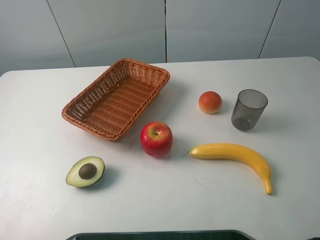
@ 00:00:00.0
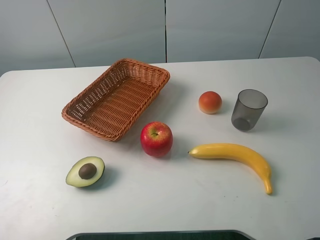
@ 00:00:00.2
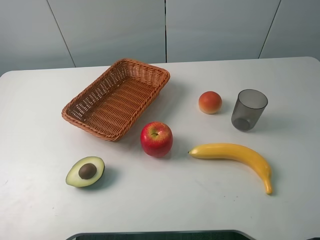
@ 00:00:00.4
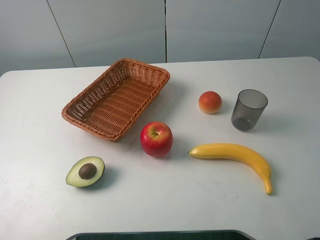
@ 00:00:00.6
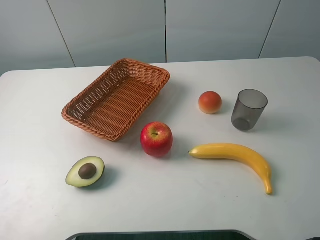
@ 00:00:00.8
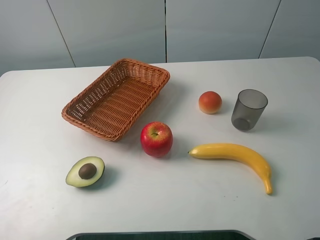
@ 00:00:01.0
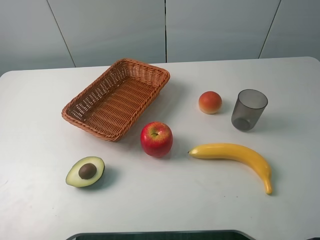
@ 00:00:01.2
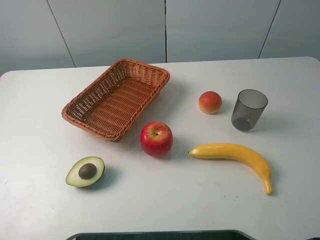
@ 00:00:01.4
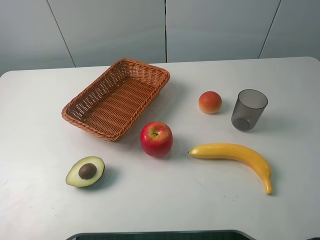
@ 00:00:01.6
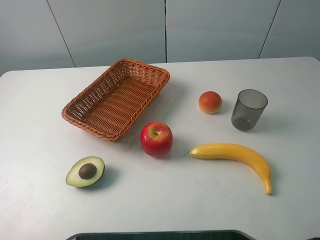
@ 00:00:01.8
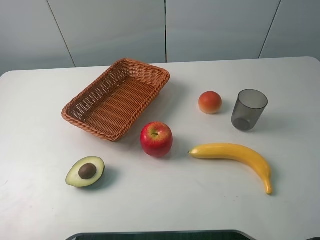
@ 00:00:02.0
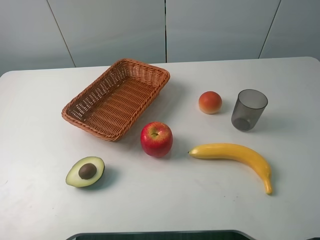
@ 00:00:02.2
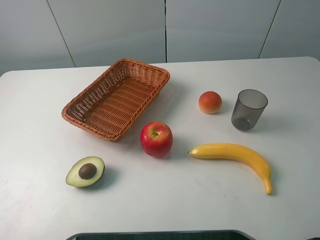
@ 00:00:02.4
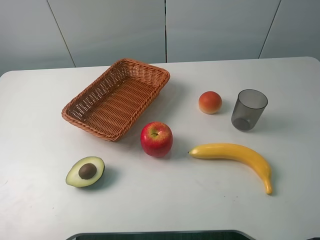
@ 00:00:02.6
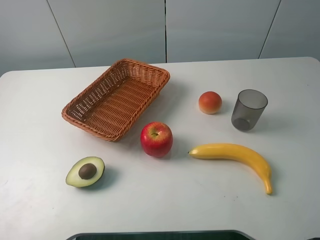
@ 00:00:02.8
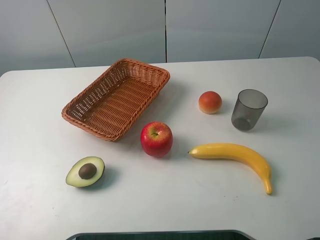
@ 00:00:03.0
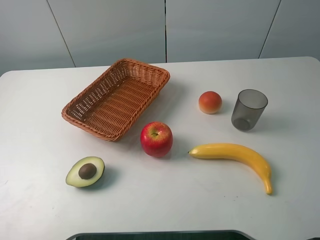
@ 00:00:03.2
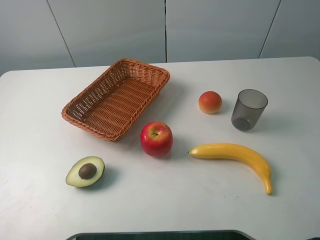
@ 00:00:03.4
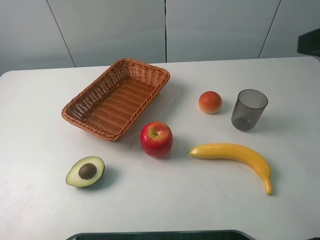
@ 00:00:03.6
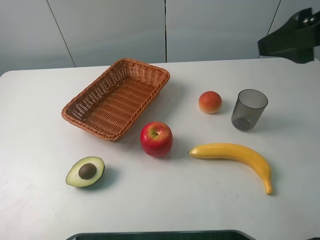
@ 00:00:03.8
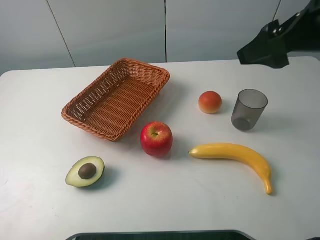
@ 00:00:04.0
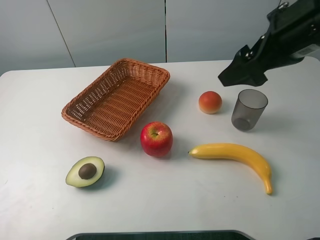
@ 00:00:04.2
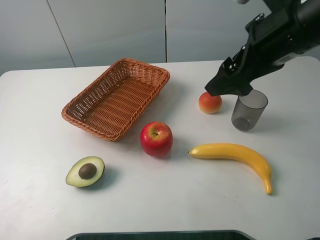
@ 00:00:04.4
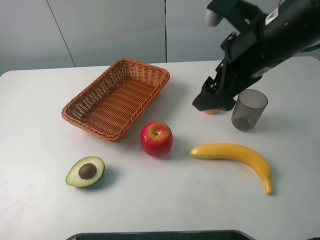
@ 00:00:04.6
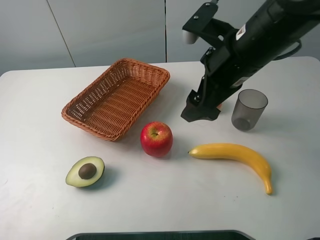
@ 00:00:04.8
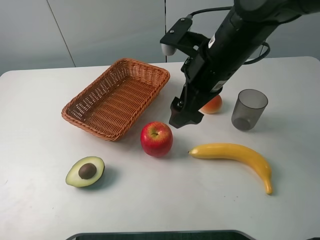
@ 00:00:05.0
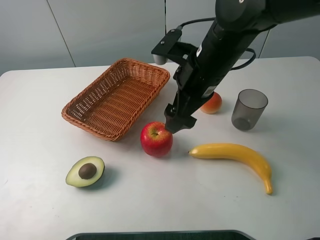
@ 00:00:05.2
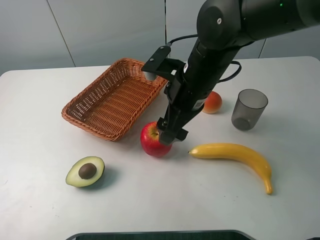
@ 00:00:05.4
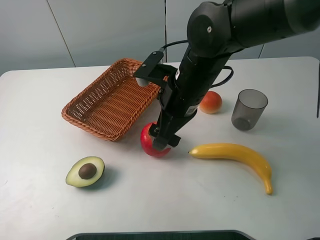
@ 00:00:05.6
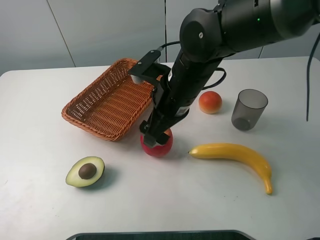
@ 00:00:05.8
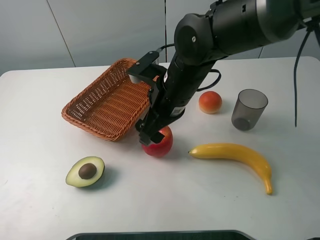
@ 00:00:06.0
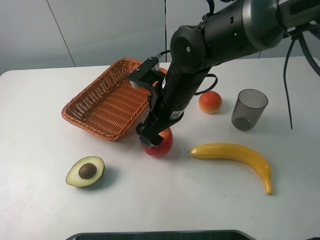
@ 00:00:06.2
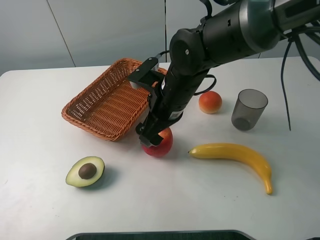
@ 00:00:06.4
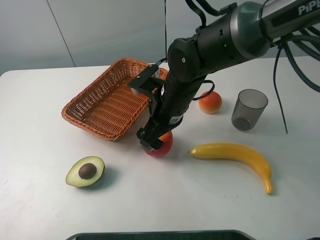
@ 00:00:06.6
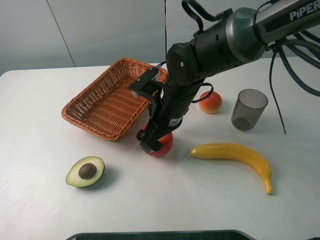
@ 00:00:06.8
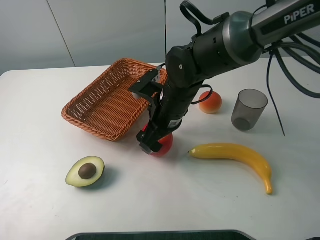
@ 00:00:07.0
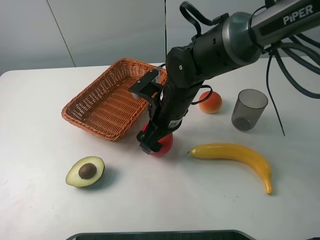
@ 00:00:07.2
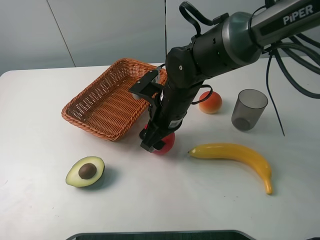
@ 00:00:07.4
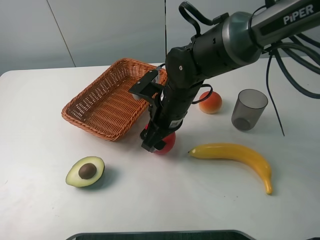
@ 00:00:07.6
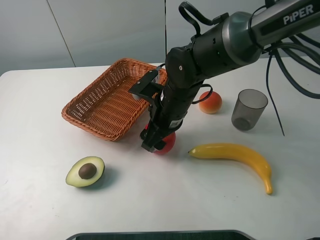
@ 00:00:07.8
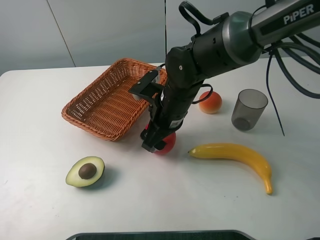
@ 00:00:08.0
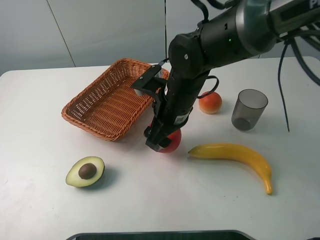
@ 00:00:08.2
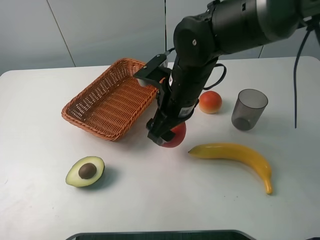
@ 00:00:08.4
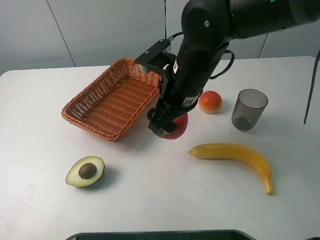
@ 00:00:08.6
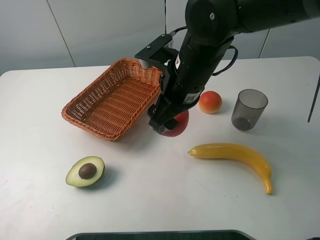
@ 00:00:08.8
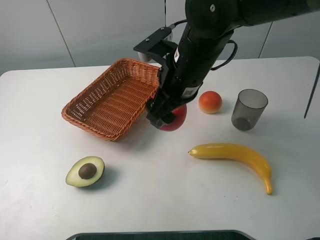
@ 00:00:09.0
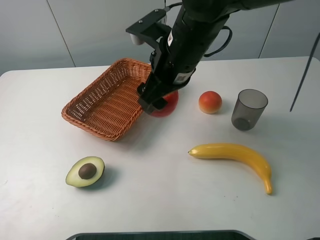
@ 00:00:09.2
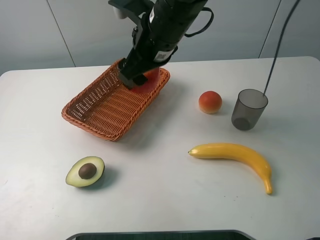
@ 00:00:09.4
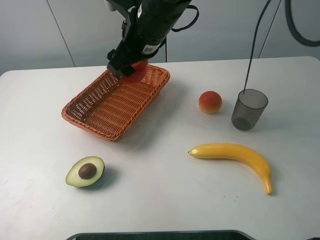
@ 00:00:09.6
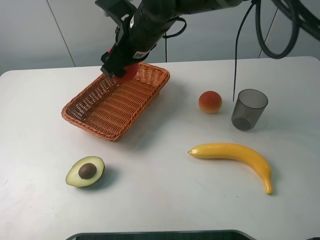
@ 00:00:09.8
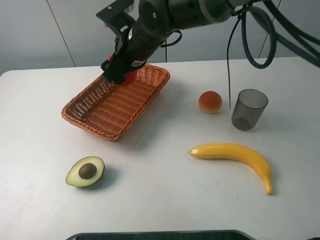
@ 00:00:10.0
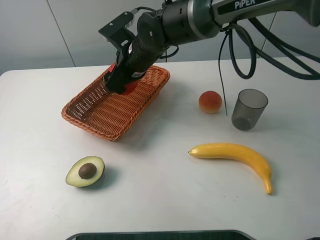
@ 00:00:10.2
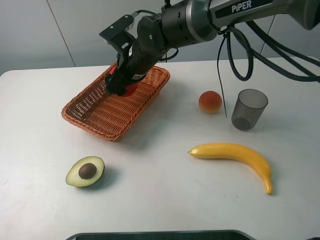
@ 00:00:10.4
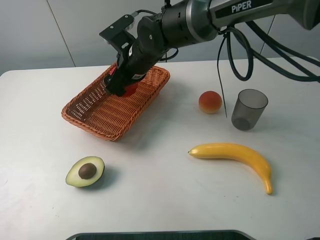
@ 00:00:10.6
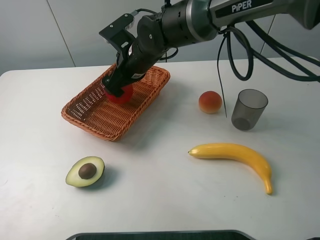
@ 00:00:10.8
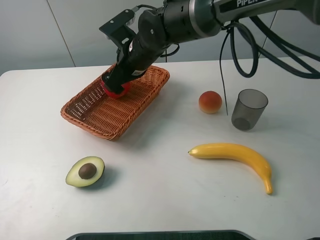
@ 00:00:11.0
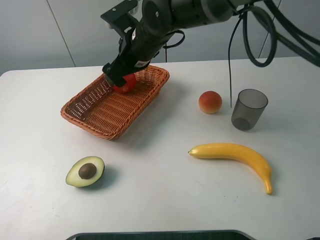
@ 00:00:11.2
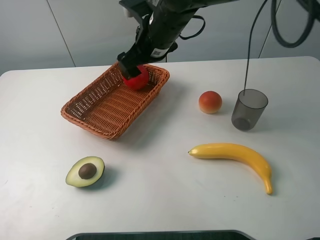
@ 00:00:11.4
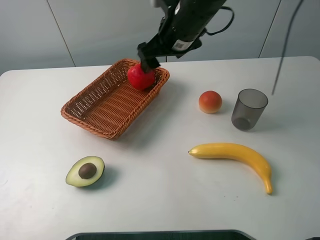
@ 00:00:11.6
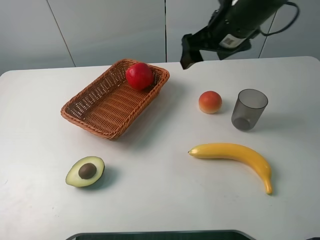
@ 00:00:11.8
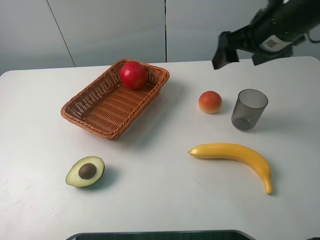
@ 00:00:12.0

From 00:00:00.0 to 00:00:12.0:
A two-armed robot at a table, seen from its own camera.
Task of the whole recording: randomly pick up an item from the table and put it in the basket.
Step, from 00:00:00.0 to 00:00:07.8: Grasp the apple with the right gripper.
Step, from 00:00:08.0 to 00:00:11.6: Place the apple into the basket with the right gripper.
From 00:00:00.0 to 00:00:01.6: Neither gripper changes place.
From 00:00:03.0 to 00:00:04.4: The right gripper goes approximately 20 cm forward and to the left.
From 00:00:04.4 to 00:00:06.0: The right gripper shifts approximately 20 cm to the left and downward.
From 00:00:06.0 to 00:00:07.6: The right gripper closes up.
From 00:00:07.6 to 00:00:09.0: The right gripper goes some 10 cm upward.
From 00:00:09.0 to 00:00:10.4: The right gripper shifts roughly 15 cm forward, to the left and downward.
From 00:00:10.4 to 00:00:12.0: The right gripper shifts approximately 25 cm to the right and upward, and opens its fingers.

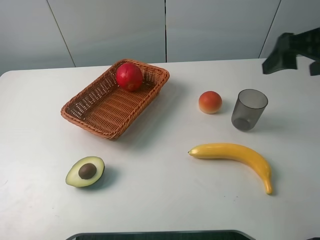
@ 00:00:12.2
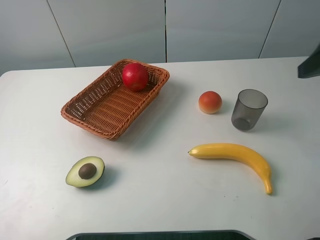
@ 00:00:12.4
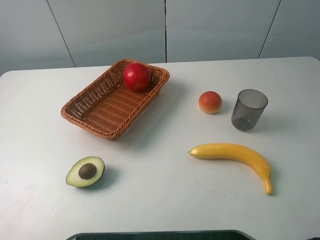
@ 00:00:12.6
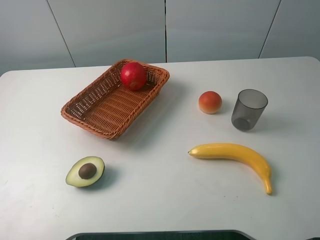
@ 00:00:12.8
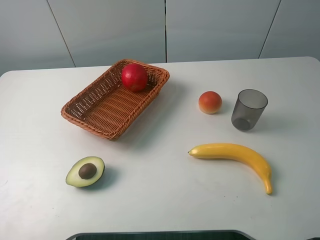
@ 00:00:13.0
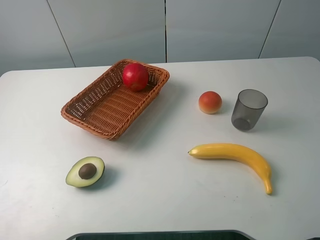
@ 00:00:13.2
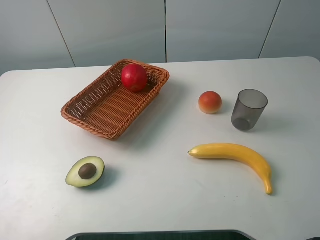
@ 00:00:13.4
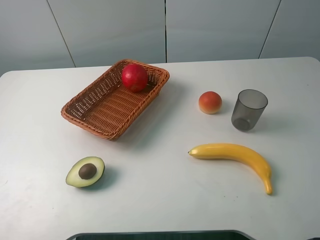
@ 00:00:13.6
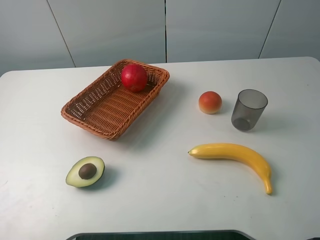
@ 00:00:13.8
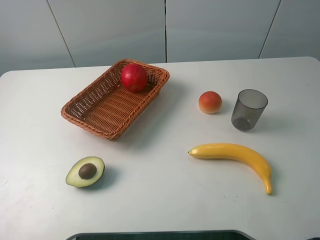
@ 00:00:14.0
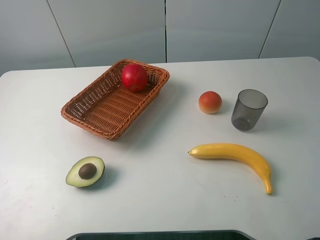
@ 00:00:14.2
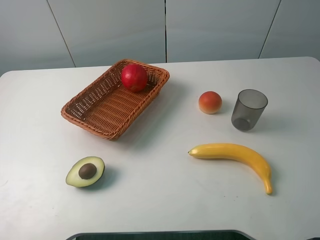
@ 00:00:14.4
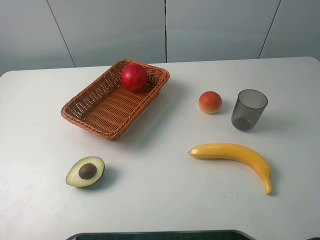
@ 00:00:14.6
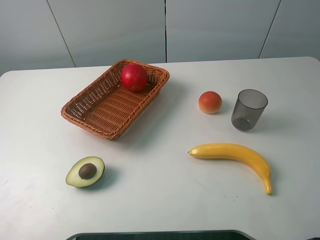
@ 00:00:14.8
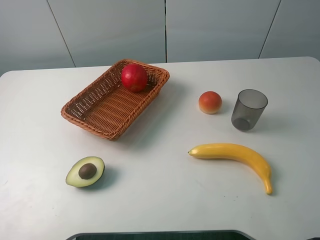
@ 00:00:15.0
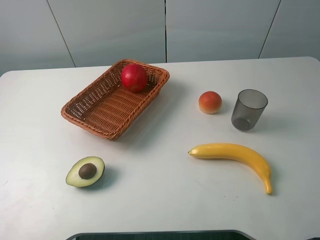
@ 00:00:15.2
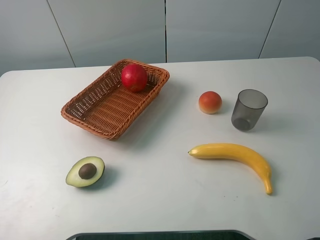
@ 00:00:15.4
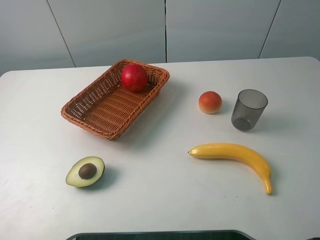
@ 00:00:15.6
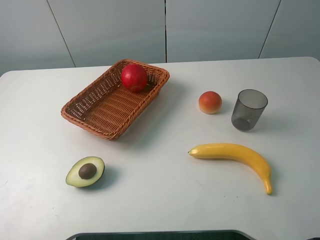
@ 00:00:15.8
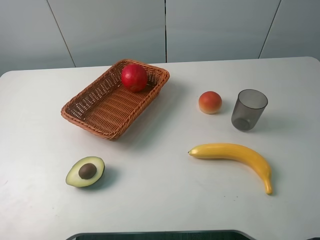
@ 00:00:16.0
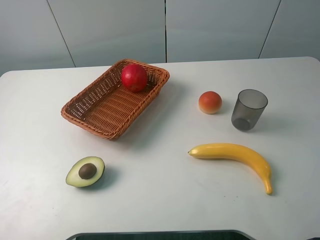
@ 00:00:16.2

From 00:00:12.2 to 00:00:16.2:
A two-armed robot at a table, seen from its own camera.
Task of the whole recording: randomly pick up an item from the table and put it in the basket.
From 00:00:12.2 to 00:00:13.6: The right gripper shifts approximately 20 cm backward.
From 00:00:13.6 to 00:00:16.2: Neither gripper changes place.
